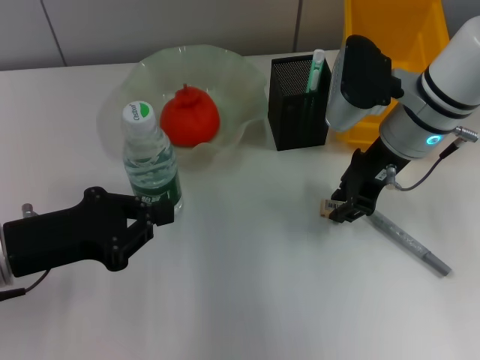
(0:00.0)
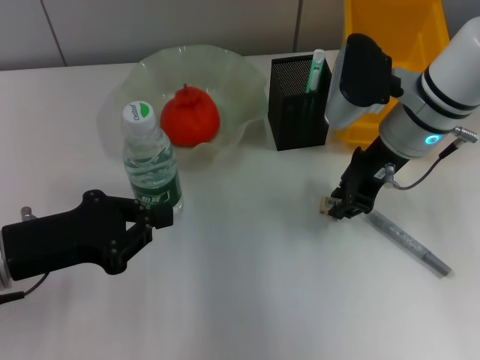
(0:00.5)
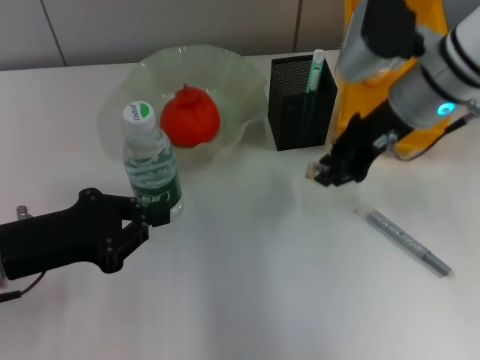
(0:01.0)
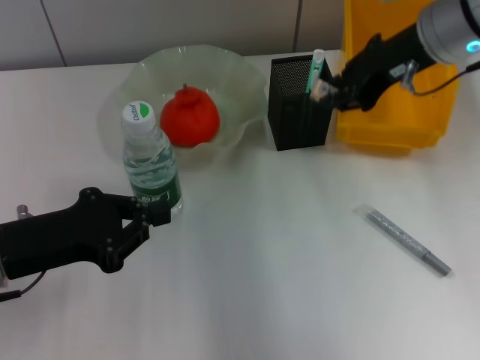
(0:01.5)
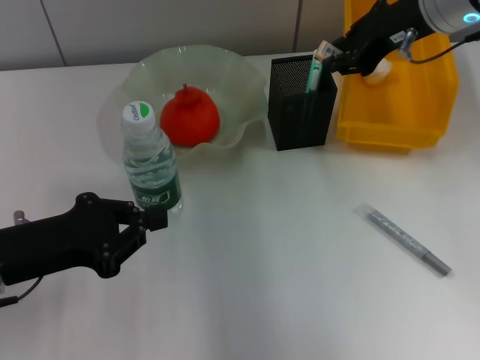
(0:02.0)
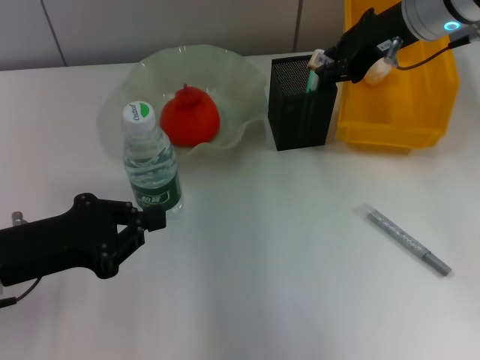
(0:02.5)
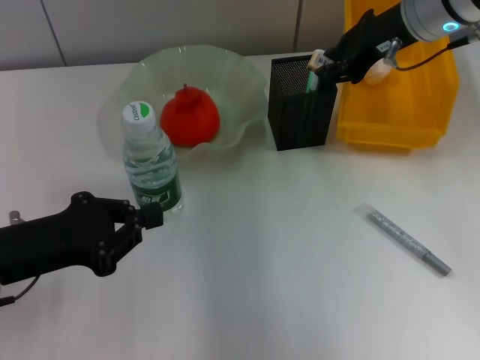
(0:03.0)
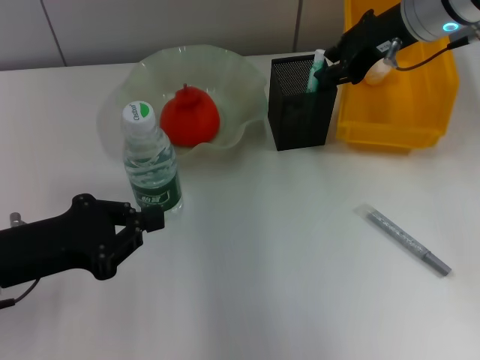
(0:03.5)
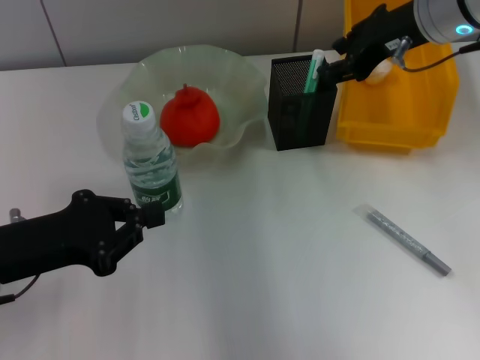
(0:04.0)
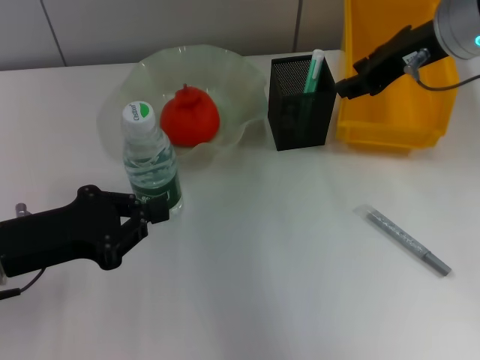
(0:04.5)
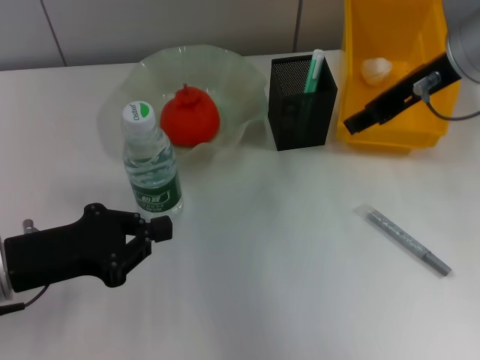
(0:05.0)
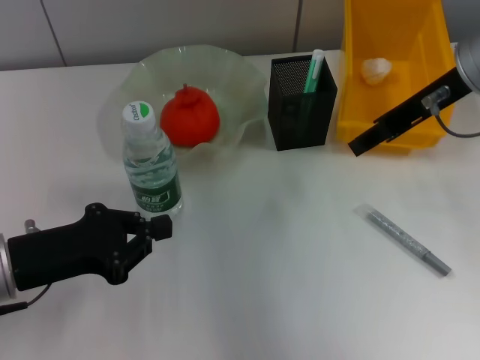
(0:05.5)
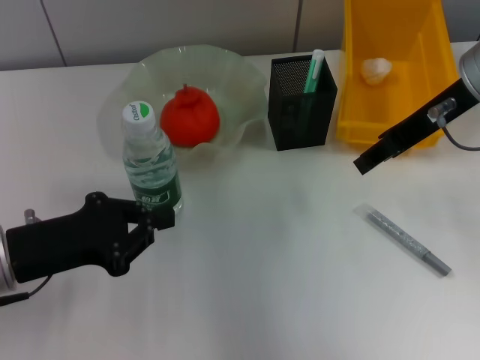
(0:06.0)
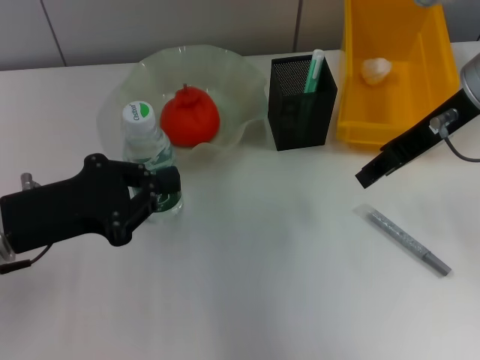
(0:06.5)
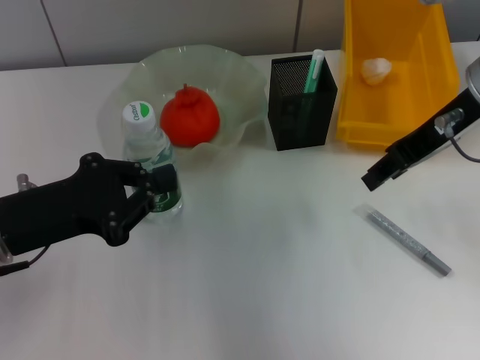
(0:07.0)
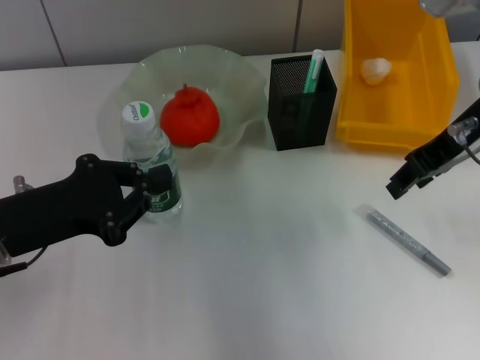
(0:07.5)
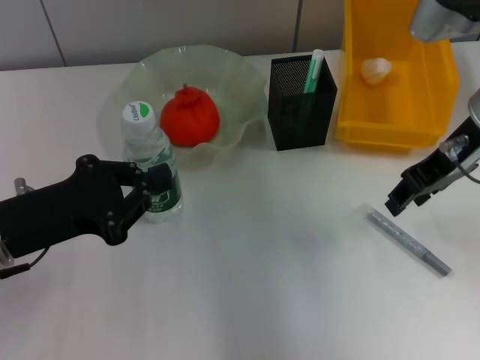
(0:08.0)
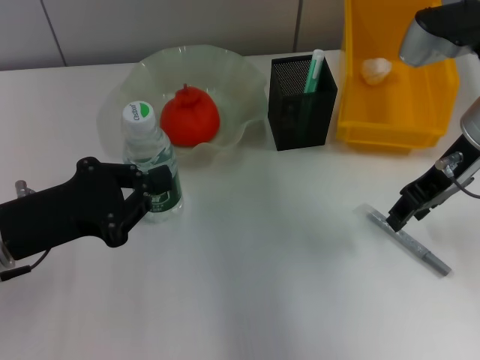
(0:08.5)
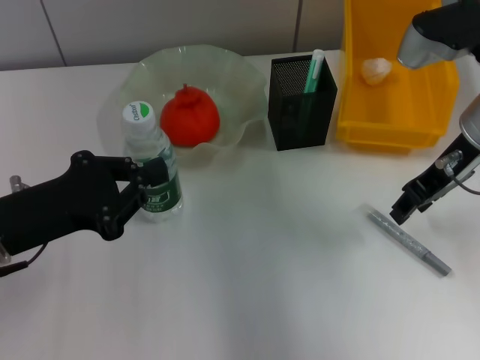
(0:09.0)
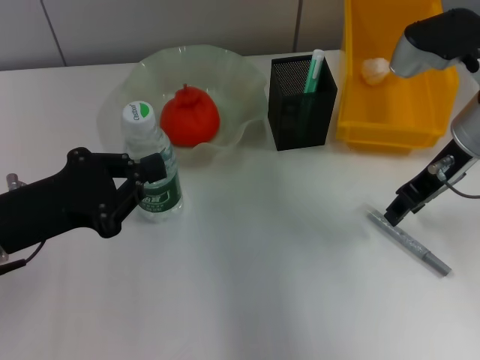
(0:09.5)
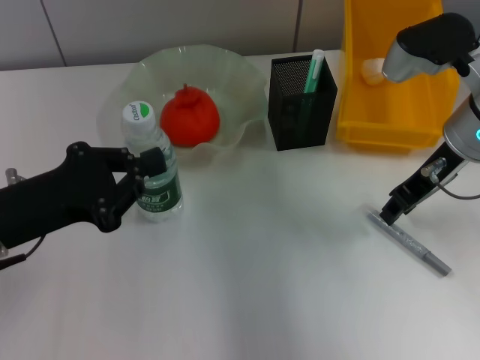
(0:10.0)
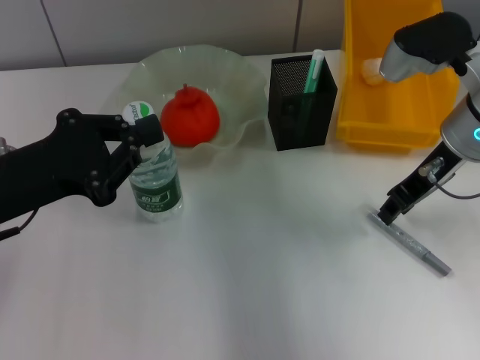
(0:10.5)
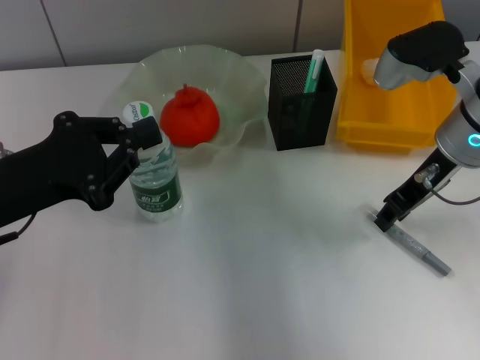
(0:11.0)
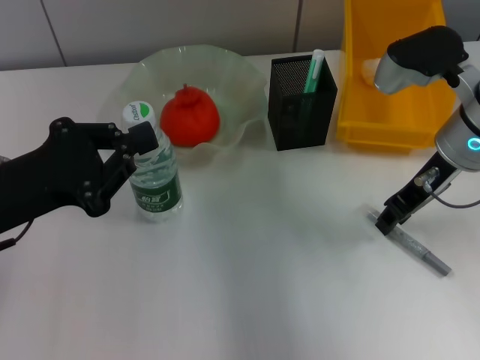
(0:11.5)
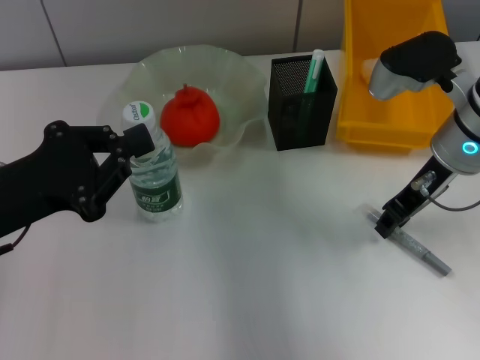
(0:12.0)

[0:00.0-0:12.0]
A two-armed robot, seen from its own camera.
Step, 0:00.5 to 0:03.0: Put the eraser into the pen holder with the right hand.
0:00.0 to 0:02.0: The right gripper travels upward by some 10 cm.
0:02.0 to 0:04.0: The grippers stay close to where they were, moving slightly.
0:04.0 to 0:06.0: The right gripper travels backward by about 5 cm.
0:06.0 to 0:08.0: There are only small adjustments of the grippers.
0:08.0 to 0:10.0: The grippers make only small movements.
0:10.0 to 0:12.0: There are only small adjustments of the grippers.

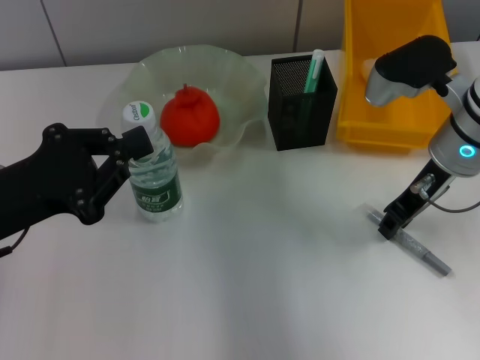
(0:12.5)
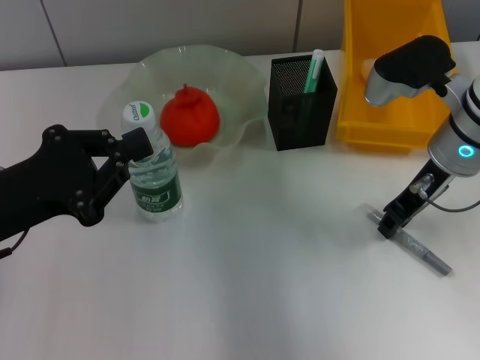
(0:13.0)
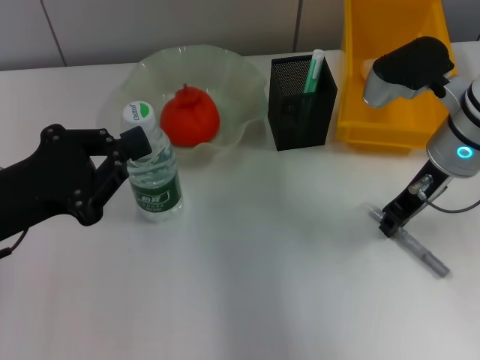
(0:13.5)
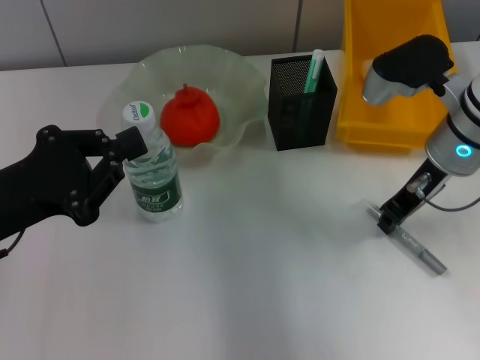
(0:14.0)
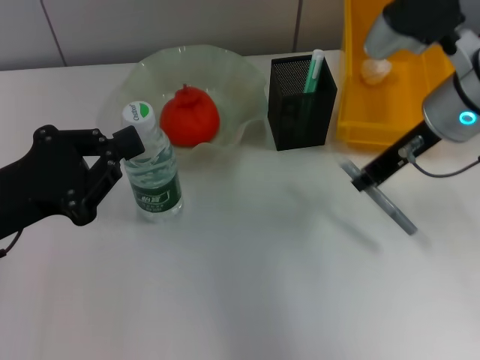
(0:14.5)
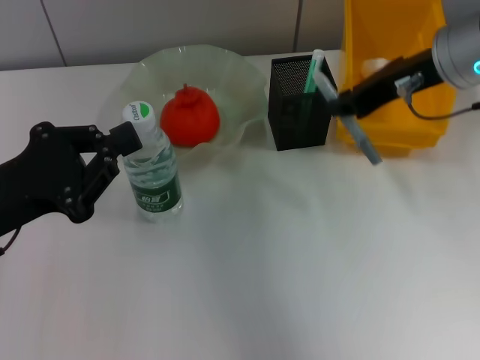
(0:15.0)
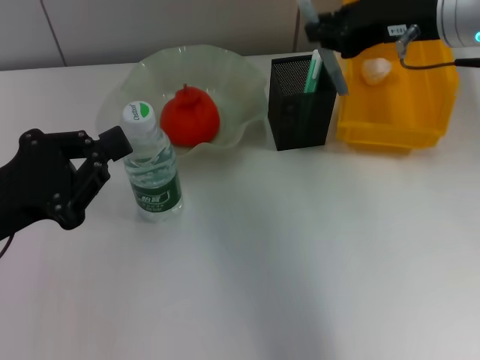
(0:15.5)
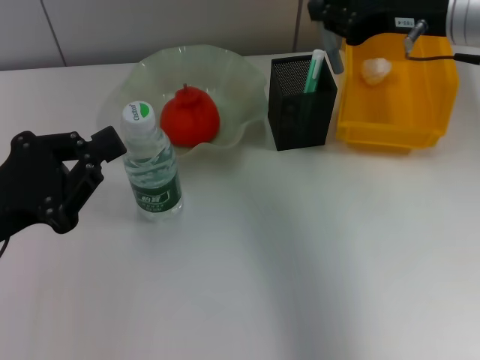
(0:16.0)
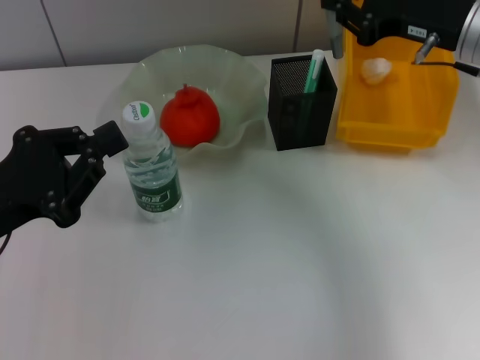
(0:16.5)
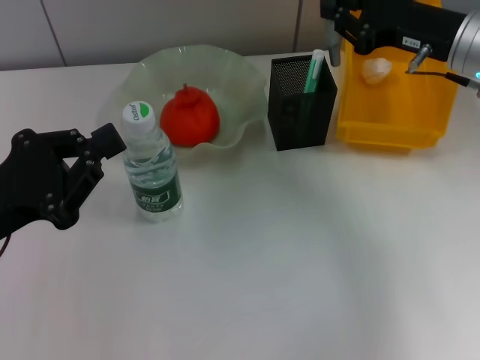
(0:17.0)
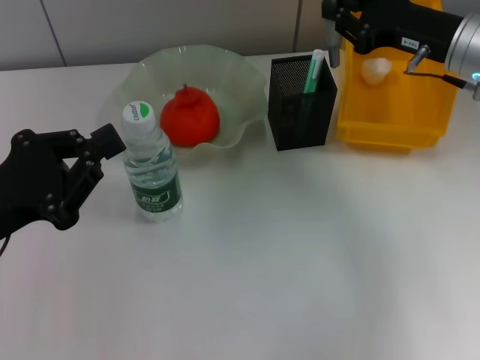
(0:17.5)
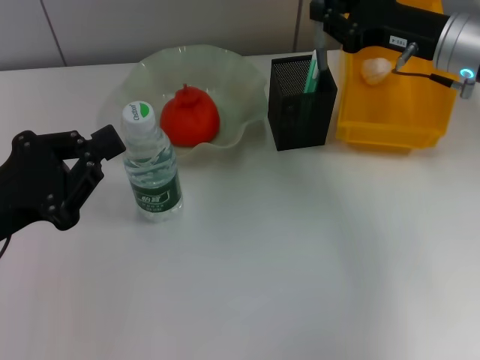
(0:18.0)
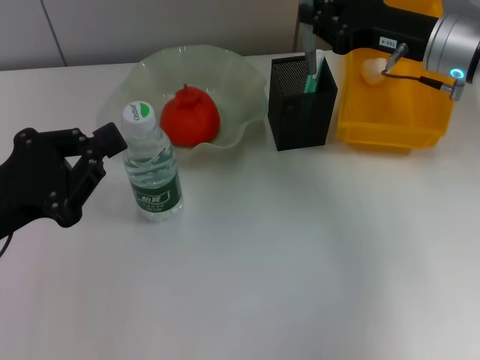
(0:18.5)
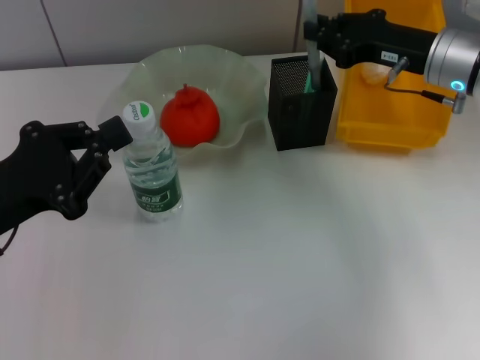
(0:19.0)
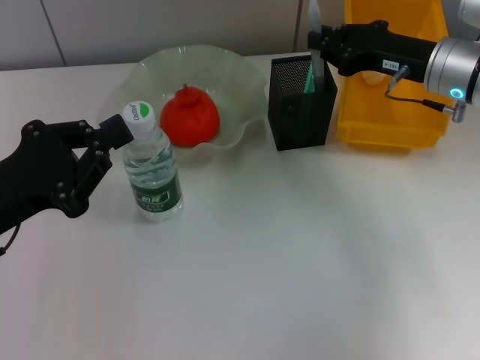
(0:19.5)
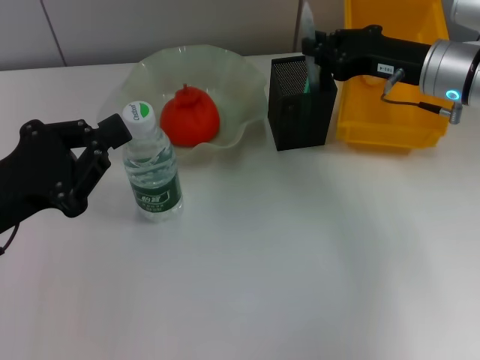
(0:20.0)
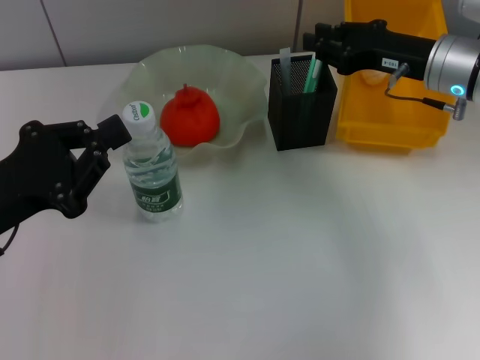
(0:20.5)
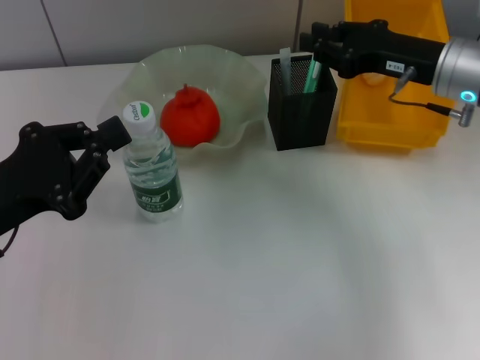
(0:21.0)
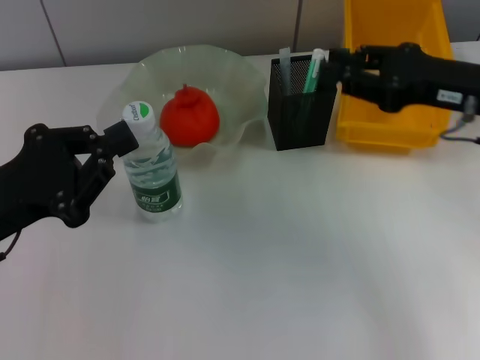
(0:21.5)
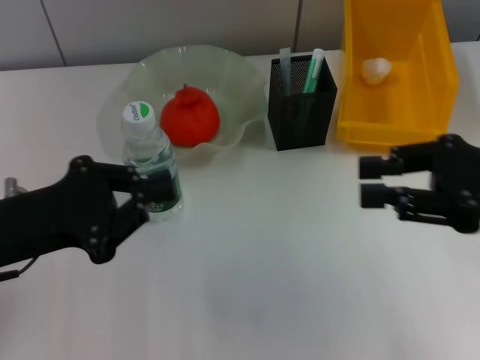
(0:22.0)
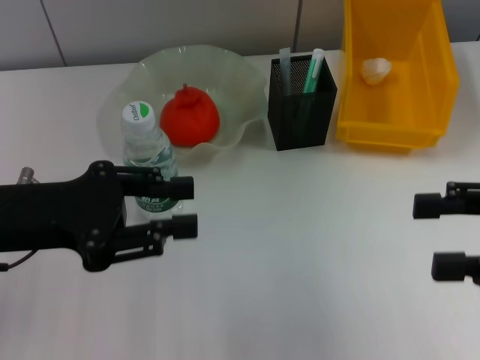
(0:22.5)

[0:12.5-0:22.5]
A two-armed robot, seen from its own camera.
Step, 0:14.0 to 0:20.0: Place the gray glue into the pen holder with the right hand.
0:12.5 to 0:14.5: The grippers move only a little.
0:14.5 to 0:16.5: The right gripper changes place by about 5 cm.
0:16.5 to 0:20.5: There are only small adjustments of the grippers.
0:20.5 to 0:22.5: The left gripper opens up. The right gripper moves backward, approximately 20 cm, and opens up.

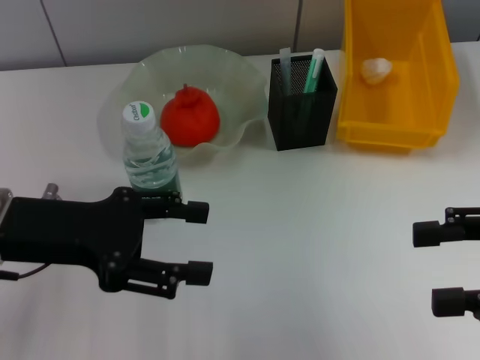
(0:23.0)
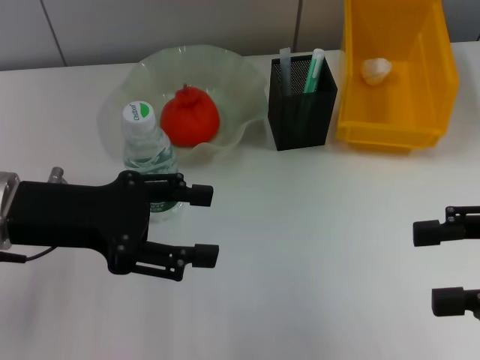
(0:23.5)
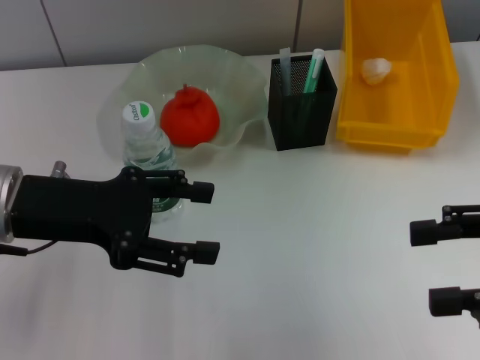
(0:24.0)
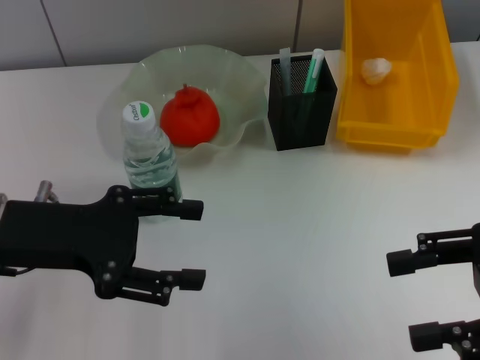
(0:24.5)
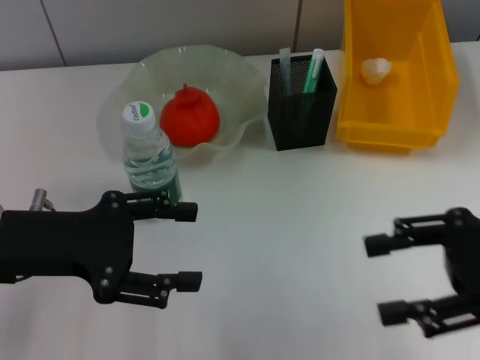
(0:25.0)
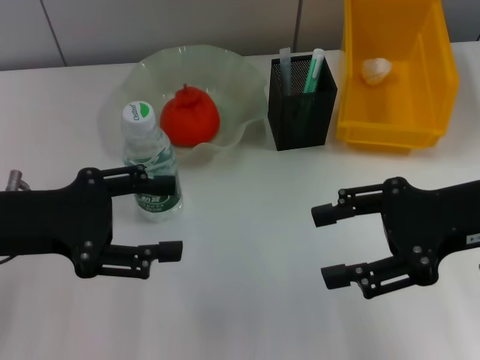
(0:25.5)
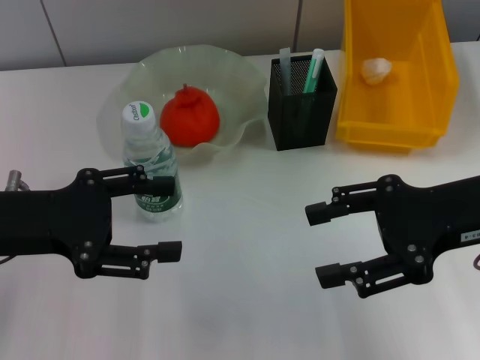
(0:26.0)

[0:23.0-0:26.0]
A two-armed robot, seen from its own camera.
0:23.0 to 0:24.5: The grippers move only a little.
0:24.5 to 0:26.0: The right gripper travels forward by about 5 cm.

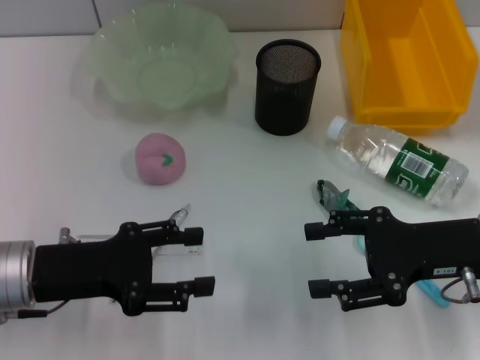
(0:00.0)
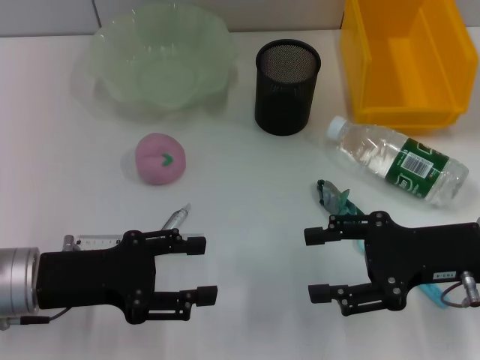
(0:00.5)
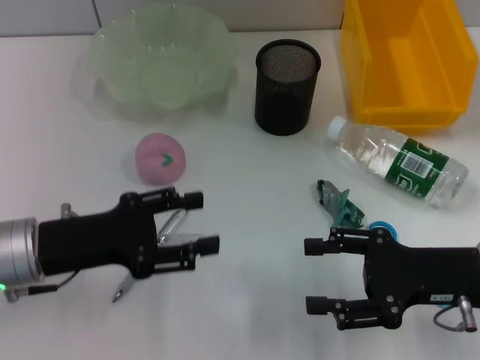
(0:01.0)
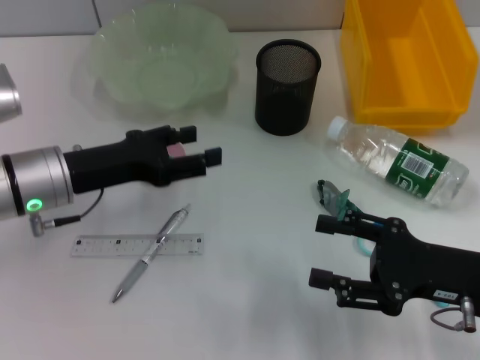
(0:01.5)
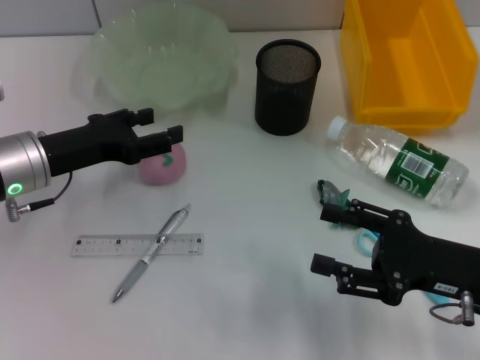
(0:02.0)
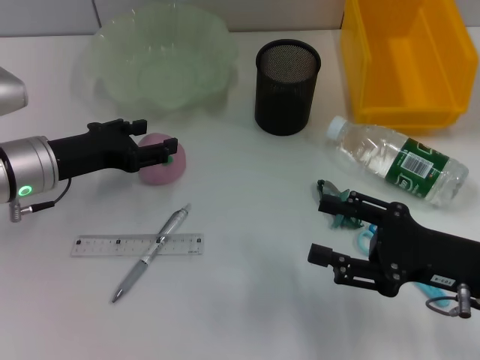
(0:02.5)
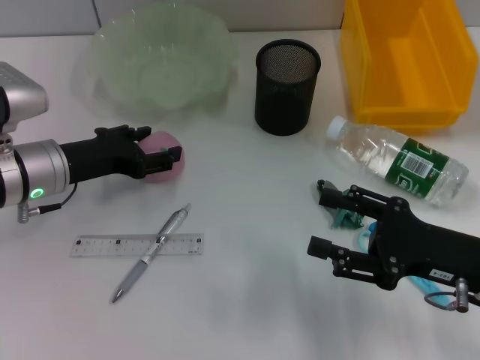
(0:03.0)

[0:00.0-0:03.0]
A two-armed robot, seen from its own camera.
0:00.0 to 0:01.5: The left gripper moves forward, some 10 cm, while the right gripper changes place by about 5 cm.
